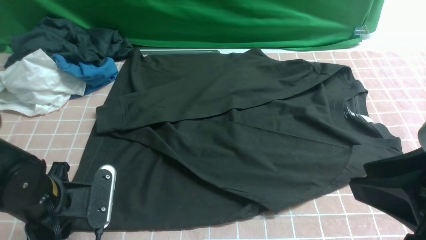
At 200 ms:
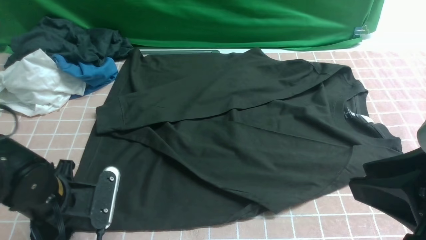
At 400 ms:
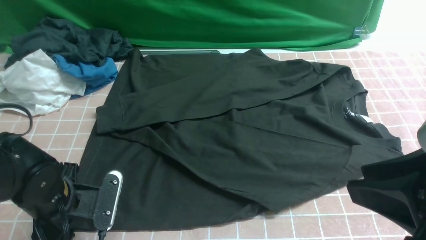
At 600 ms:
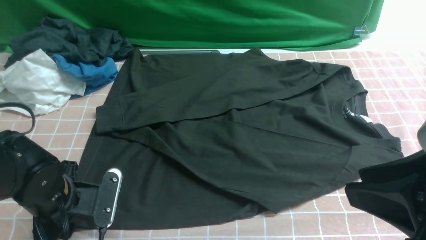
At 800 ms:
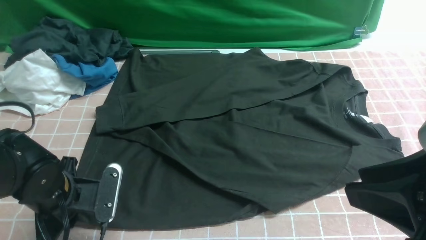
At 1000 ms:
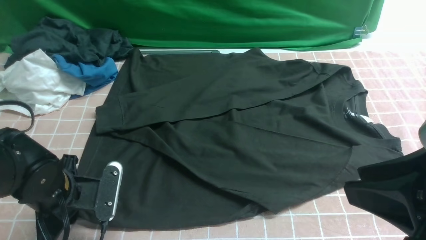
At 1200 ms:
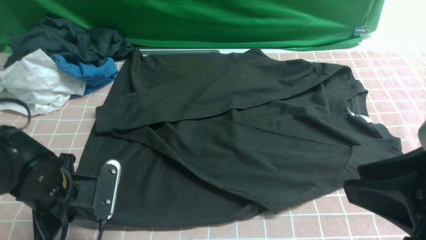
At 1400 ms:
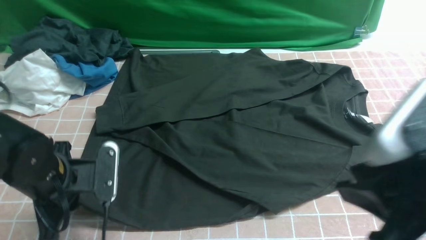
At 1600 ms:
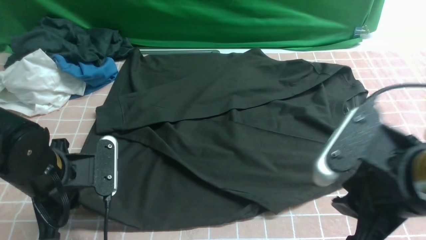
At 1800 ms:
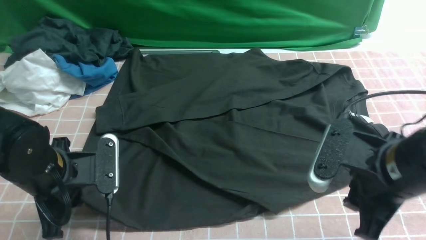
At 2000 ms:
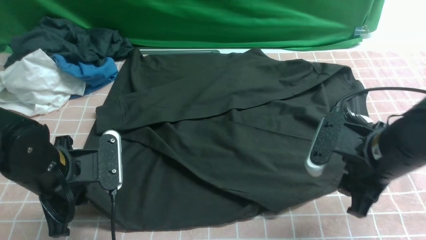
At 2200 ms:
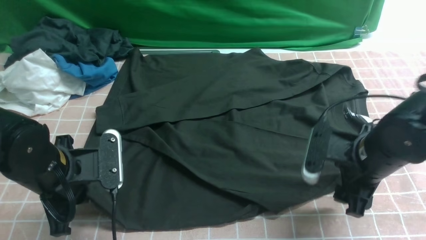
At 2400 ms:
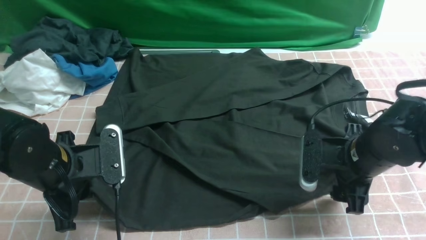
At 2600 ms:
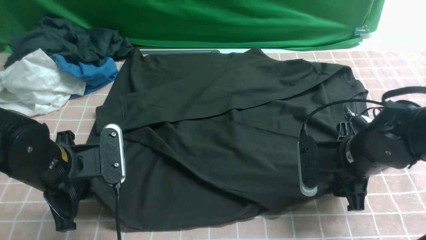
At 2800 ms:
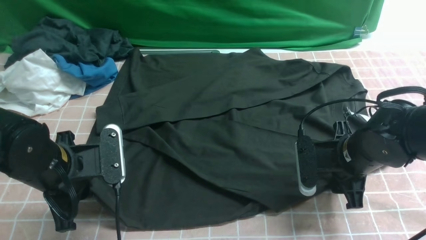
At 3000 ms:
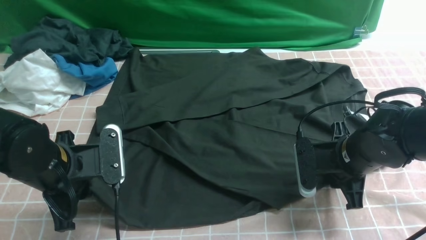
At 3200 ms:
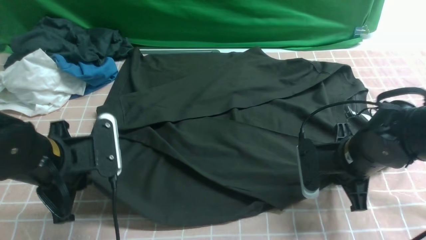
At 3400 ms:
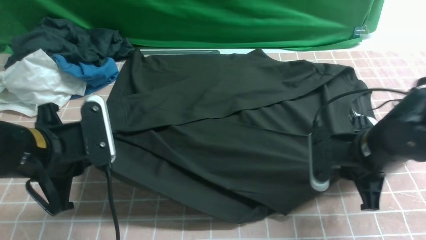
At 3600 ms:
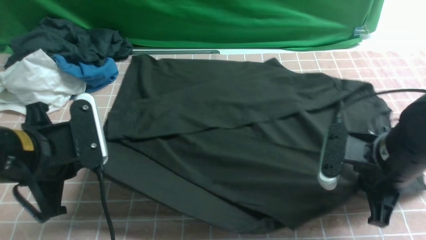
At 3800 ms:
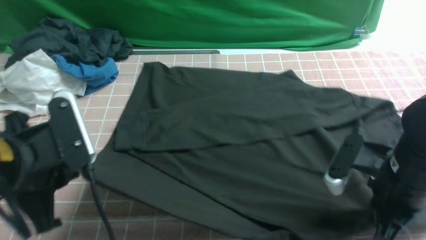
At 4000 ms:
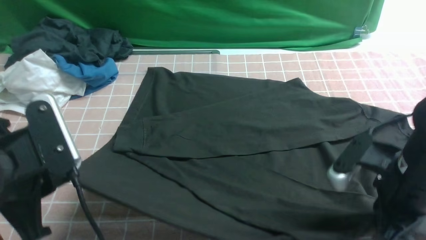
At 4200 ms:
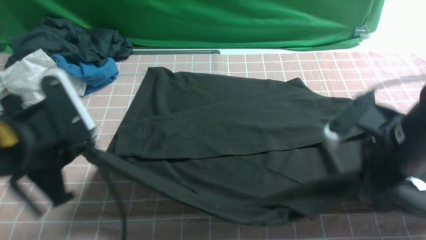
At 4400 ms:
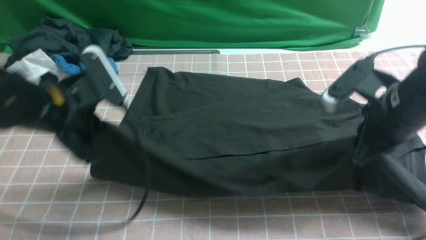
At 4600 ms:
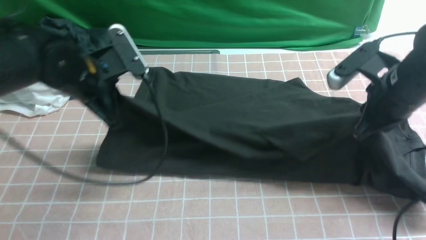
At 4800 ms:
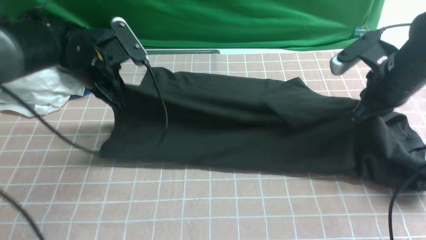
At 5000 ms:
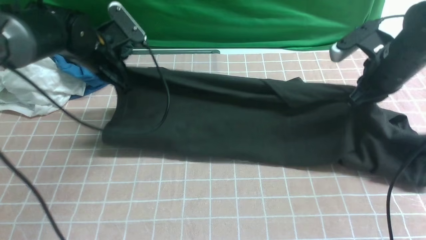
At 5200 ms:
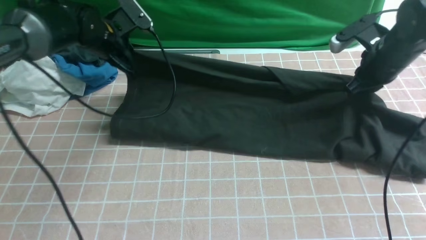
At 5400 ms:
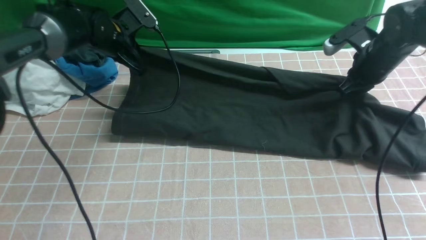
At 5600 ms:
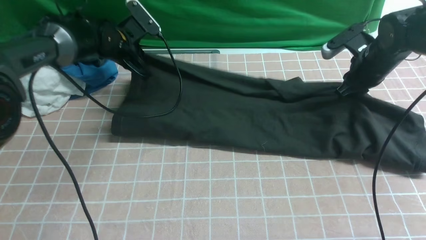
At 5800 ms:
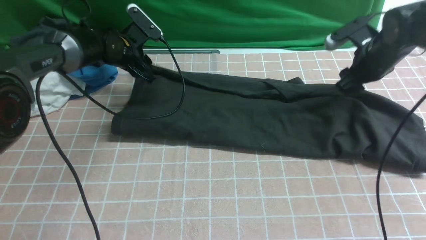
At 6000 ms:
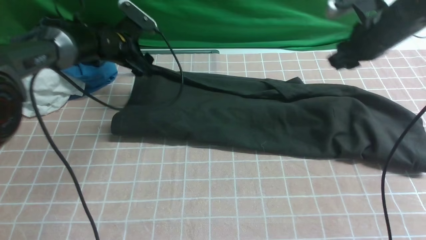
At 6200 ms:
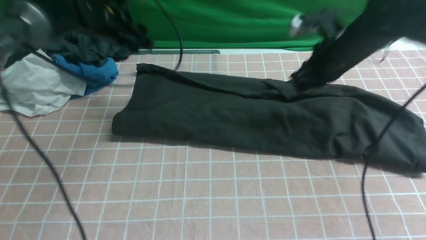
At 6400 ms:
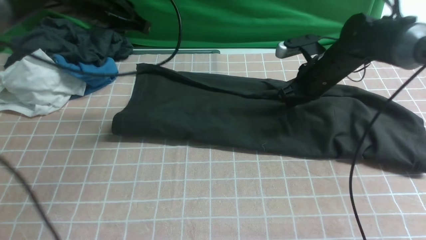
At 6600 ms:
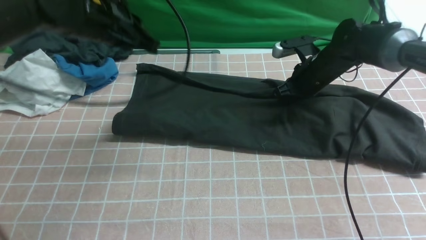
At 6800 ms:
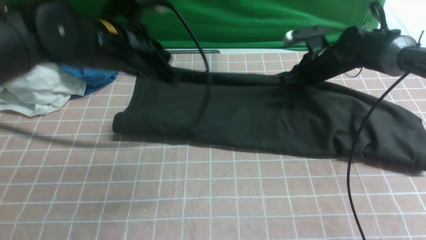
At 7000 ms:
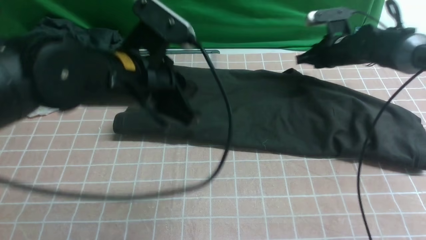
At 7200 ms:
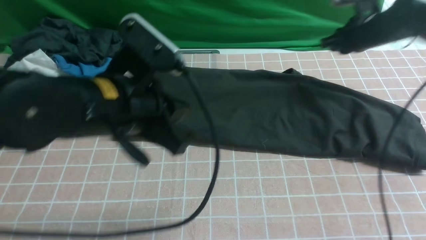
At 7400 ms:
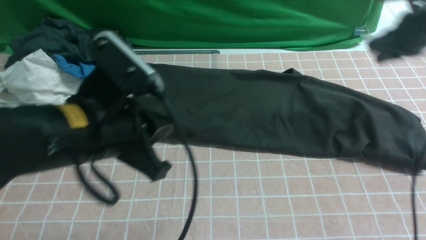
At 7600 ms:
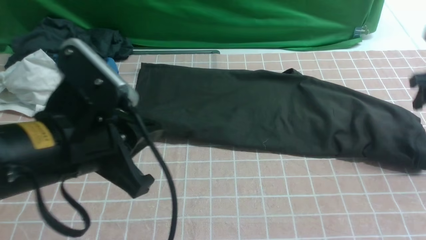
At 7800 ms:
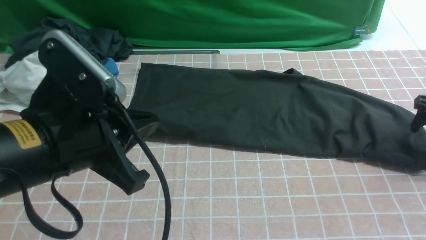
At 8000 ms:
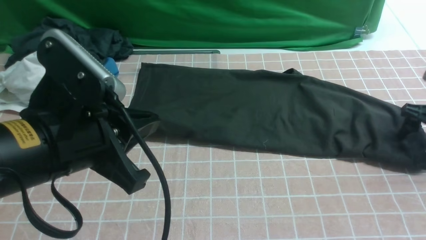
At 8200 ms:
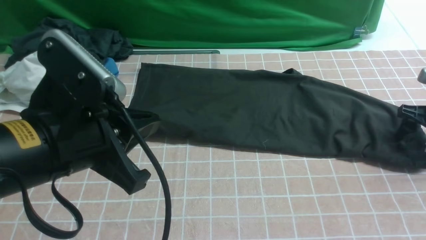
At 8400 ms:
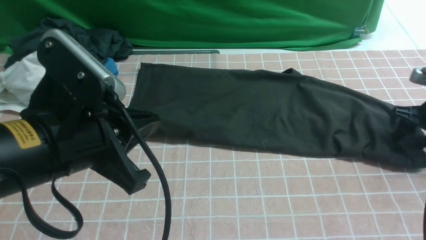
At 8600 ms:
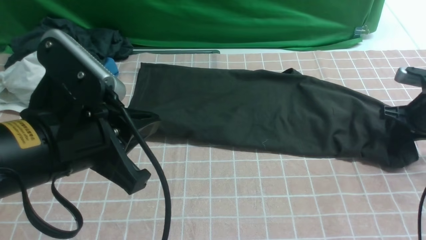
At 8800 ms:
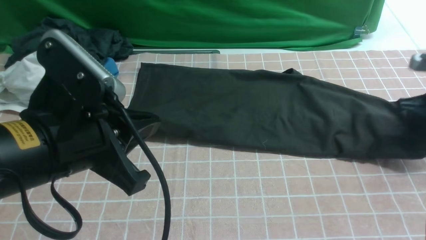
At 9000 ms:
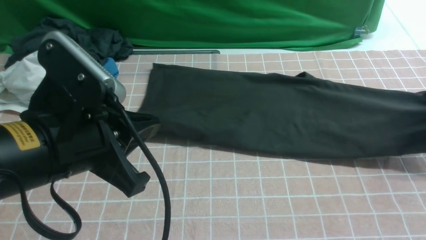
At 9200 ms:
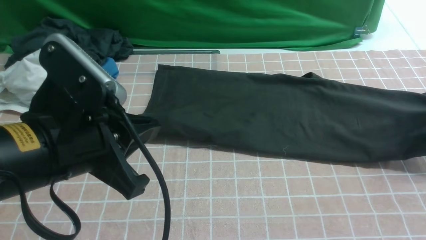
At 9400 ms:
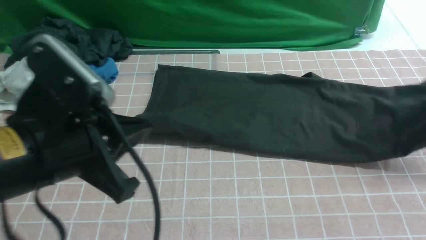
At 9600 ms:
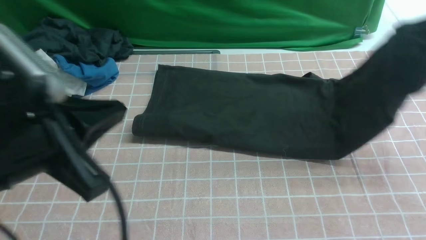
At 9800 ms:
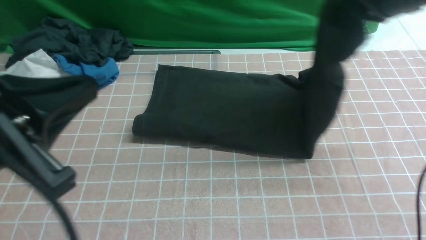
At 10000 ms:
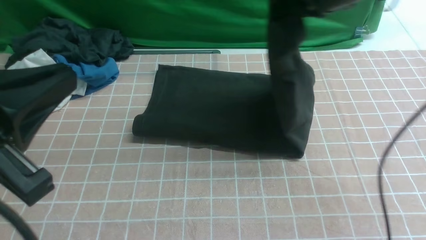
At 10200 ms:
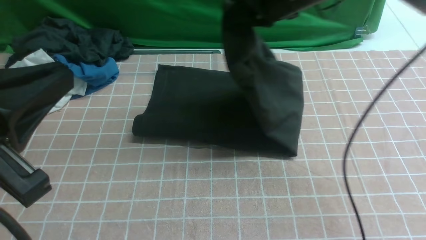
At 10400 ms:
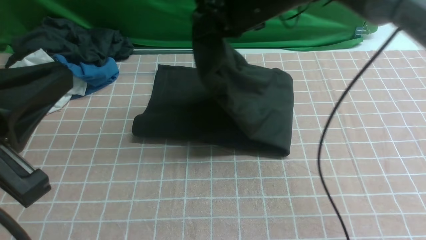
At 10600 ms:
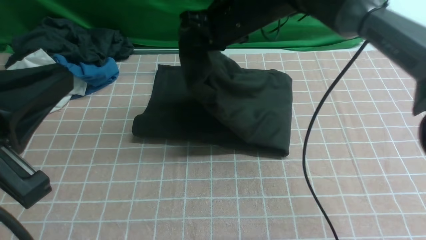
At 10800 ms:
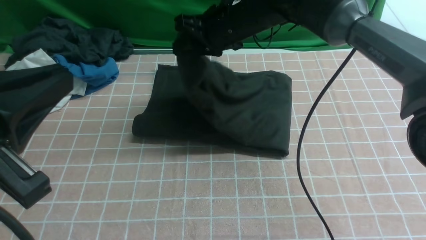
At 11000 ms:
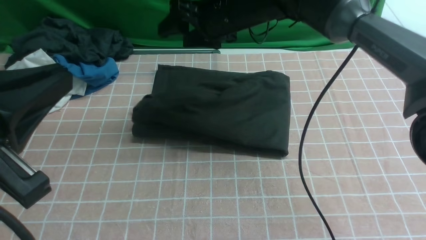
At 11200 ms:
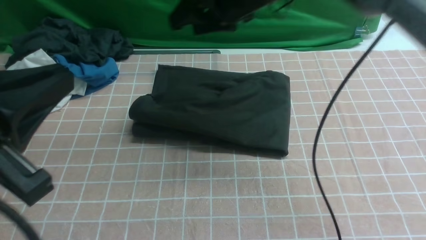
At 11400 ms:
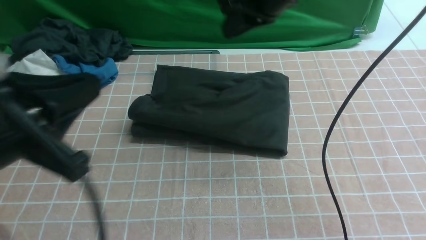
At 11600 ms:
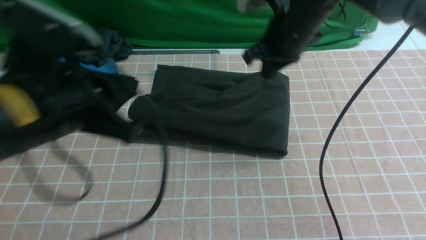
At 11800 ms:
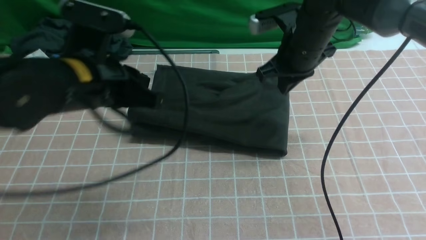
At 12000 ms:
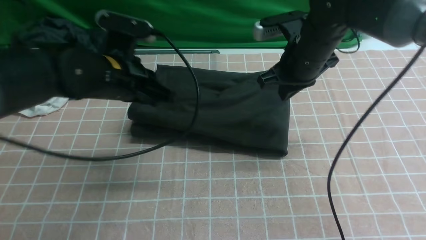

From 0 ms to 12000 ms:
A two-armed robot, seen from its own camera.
Step, from 0 ms to 3000 ms: use both arms simultaneously to clamp the lower edge of the clothing fabric.
Step, from 3200 ms to 6800 ms: use both arms to drag the lower edge of the fabric forward and fold it over the upper edge.
Step, from 7200 ms to 8600 ms: use the right arm to clamp the right edge of the fabric.
Step, from 8800 ms to 10800 ms: use the right arm to drag the right edge of the fabric to the left and folds it over the left edge.
From 0 ms to 1600 ms: The right gripper goes about 10 cm downward and forward.
From 1600 ms to 3000 ms: The right gripper heads downward and forward, covering about 15 cm, and opens and closes again.
From 3000 ms to 4400 ms: The right gripper heads upward, covering roughly 10 cm, while the left gripper travels upward and forward by about 10 cm.
From 4400 ms to 6000 ms: The two grippers go approximately 20 cm forward. The right gripper opens up. Meanwhile the left gripper opens up.
From 6000 ms to 7600 ms: The right gripper shifts approximately 15 cm to the right and backward, and opens, while the left gripper heads backward, covering approximately 30 cm, and closes up.
From 7600 ms to 9000 ms: The right gripper moves some 10 cm downward and comes back, and closes its fingers.
From 9000 ms to 10400 ms: The right gripper is displaced to the left by about 35 cm; the left gripper is displaced backward and upward by about 10 cm.
From 10400 ms to 12000 ms: The right gripper heads to the right and downward, covering roughly 10 cm, and opens, then closes once more; the left gripper goes roughly 25 cm forward and downward.

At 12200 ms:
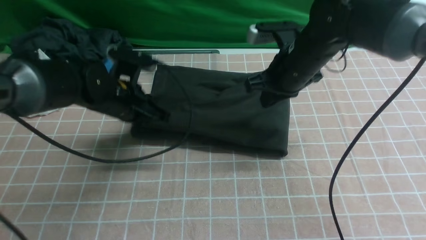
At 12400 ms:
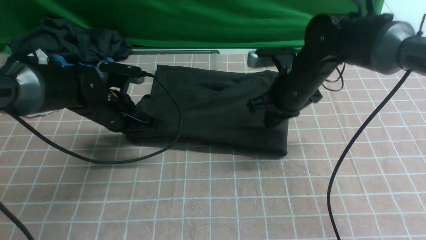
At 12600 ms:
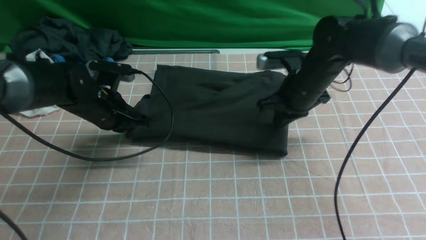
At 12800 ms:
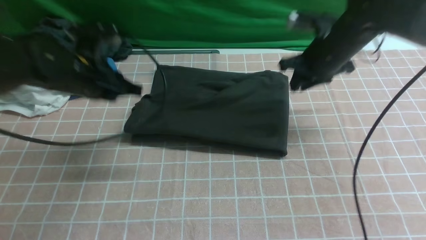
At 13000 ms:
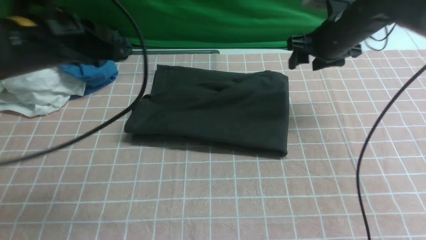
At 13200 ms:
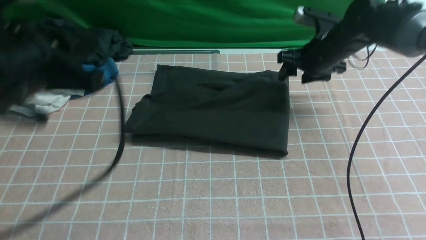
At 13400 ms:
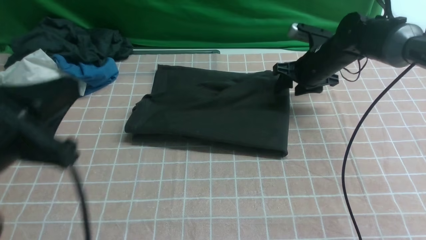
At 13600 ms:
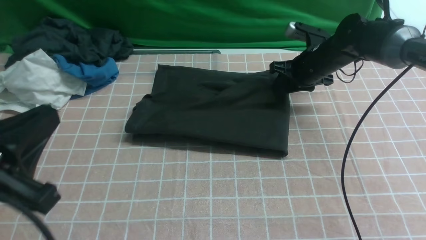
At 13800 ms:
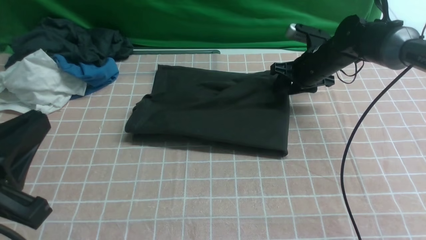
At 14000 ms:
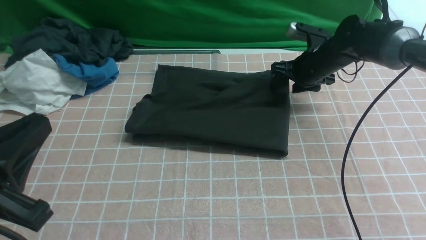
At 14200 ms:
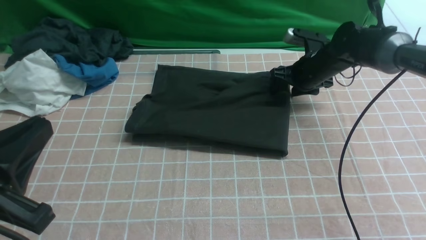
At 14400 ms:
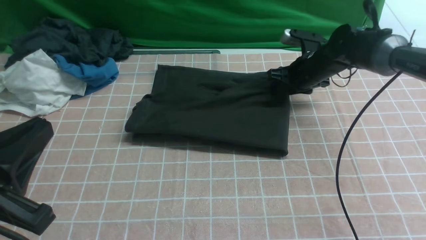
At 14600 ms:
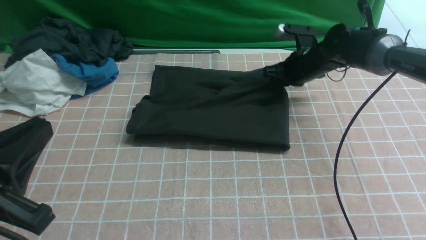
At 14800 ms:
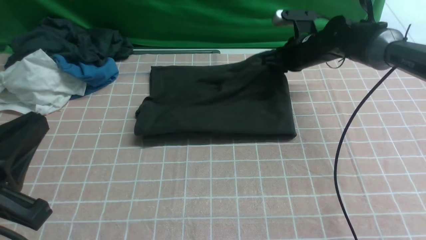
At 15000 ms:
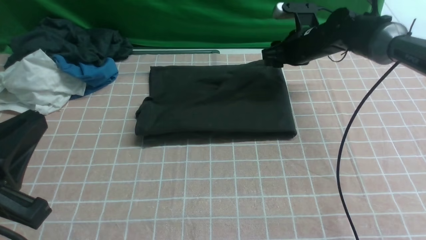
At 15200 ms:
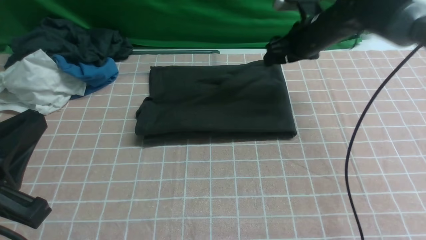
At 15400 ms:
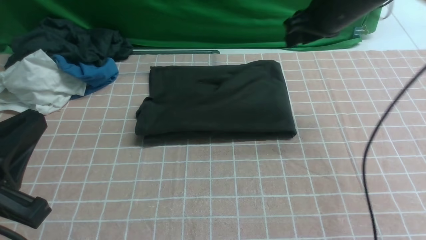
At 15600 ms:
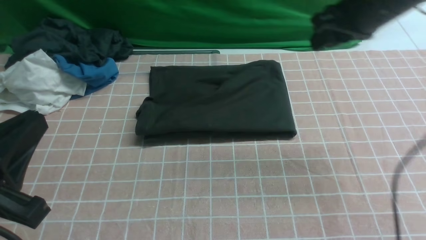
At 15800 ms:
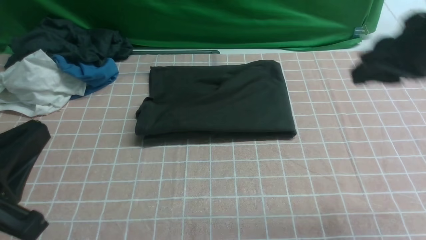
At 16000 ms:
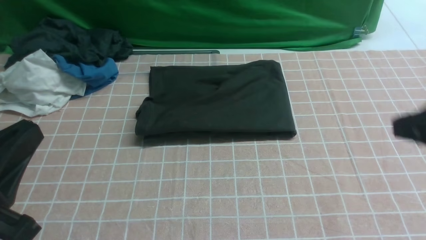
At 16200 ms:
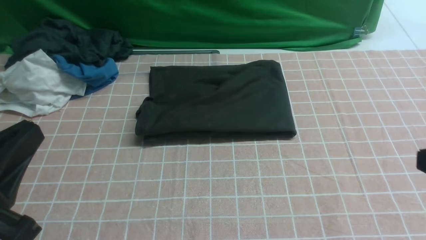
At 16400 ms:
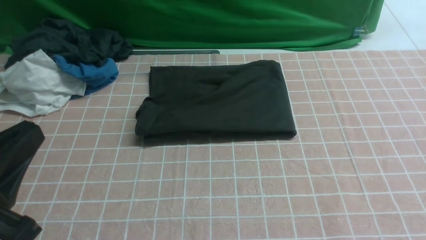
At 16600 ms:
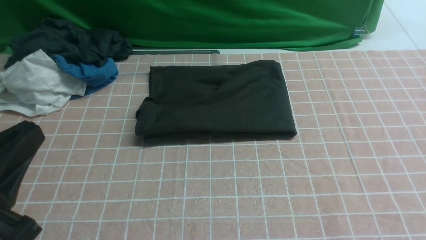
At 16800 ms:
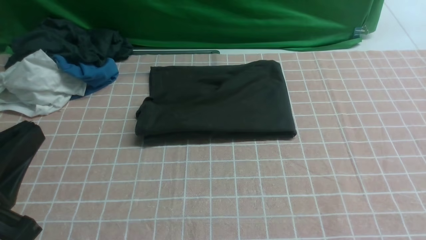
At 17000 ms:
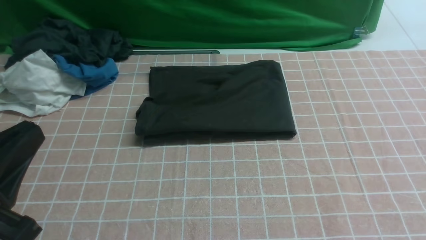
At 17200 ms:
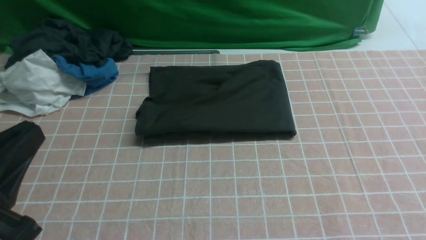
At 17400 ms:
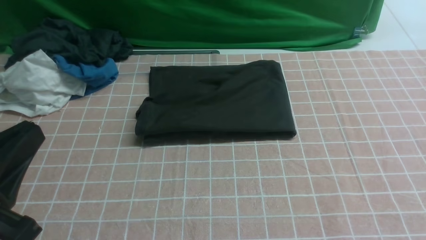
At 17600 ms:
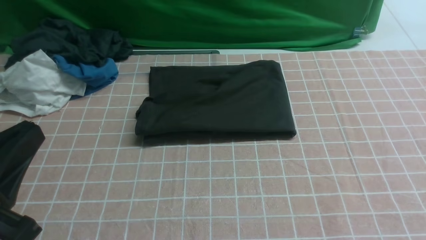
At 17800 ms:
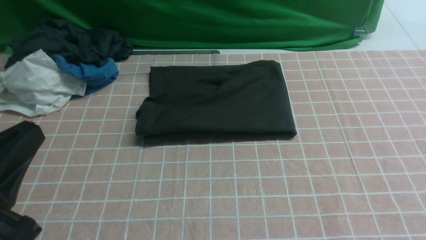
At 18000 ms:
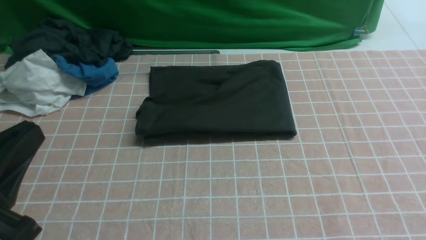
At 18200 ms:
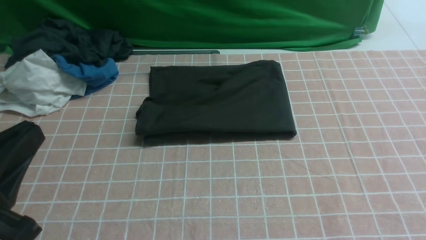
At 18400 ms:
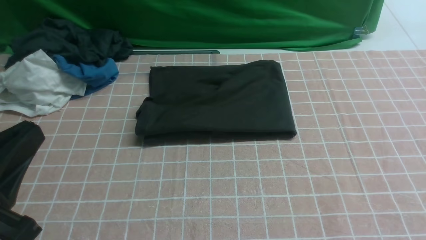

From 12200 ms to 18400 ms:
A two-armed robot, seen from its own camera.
From 12200 ms to 13800 ms: The right gripper shifts some 10 cm forward, to the right and downward, and opens. Meanwhile the left gripper shifts roughly 30 cm backward and upward.
From 13800 ms to 15400 ms: The right gripper moves upward and backward, approximately 15 cm.
From 15400 ms to 16800 ms: The right gripper travels backward by roughly 35 cm, and closes its fingers.
